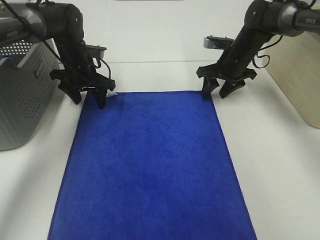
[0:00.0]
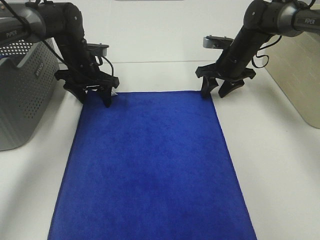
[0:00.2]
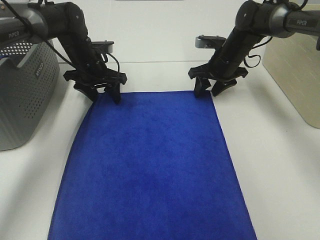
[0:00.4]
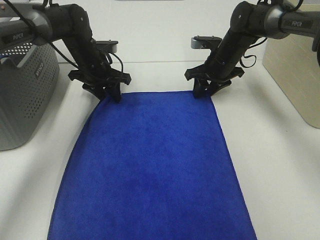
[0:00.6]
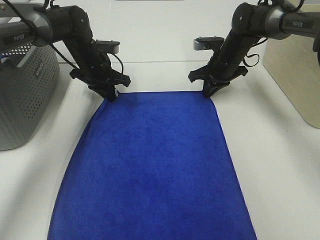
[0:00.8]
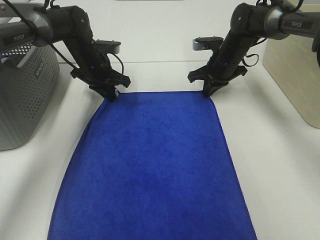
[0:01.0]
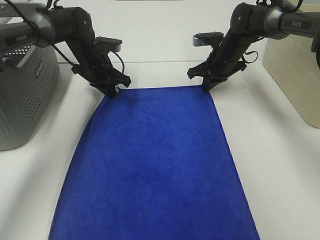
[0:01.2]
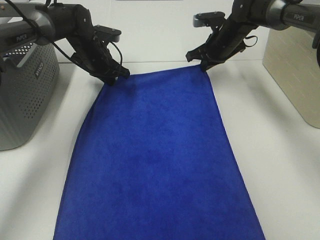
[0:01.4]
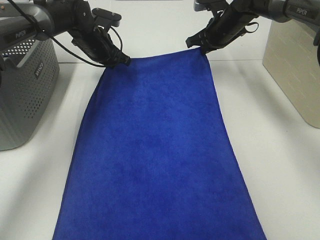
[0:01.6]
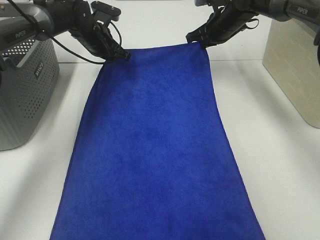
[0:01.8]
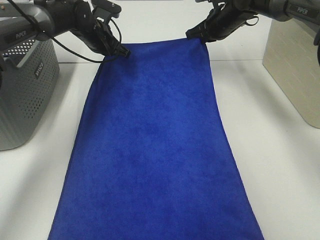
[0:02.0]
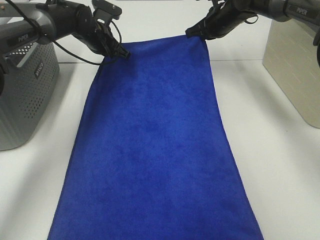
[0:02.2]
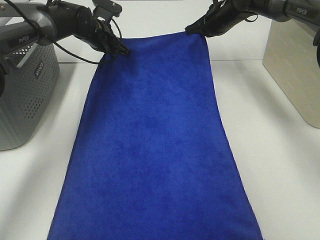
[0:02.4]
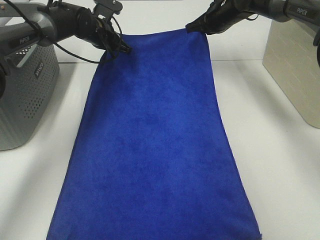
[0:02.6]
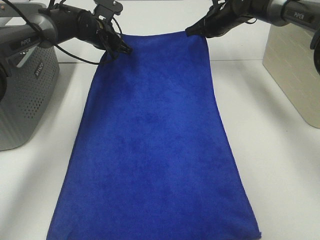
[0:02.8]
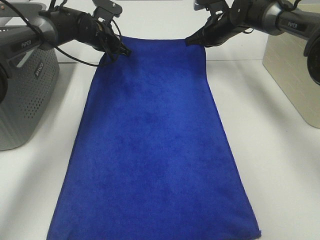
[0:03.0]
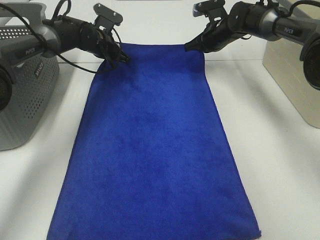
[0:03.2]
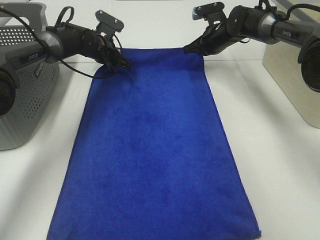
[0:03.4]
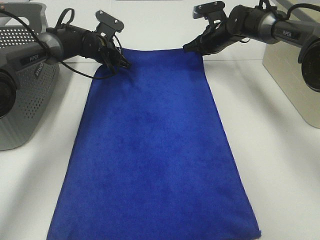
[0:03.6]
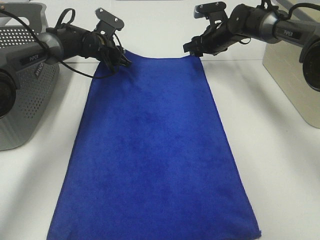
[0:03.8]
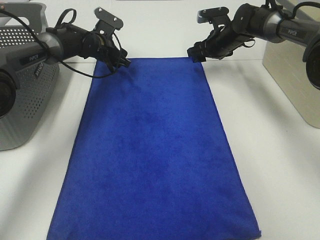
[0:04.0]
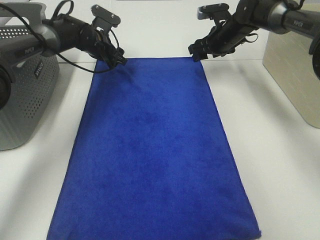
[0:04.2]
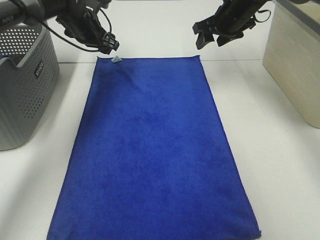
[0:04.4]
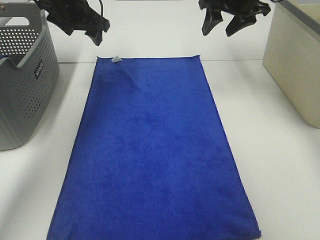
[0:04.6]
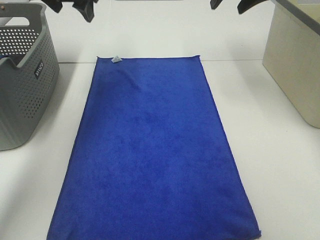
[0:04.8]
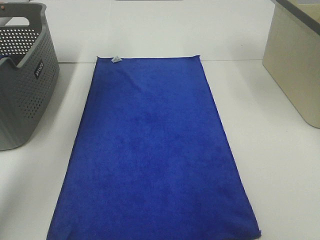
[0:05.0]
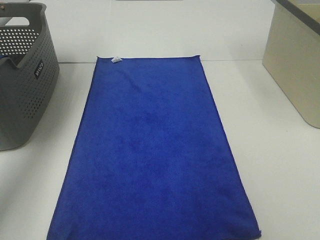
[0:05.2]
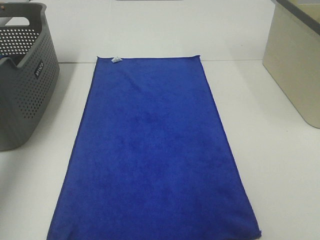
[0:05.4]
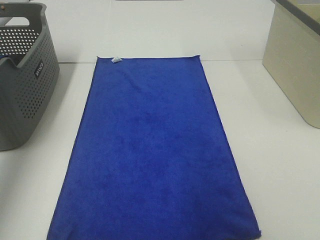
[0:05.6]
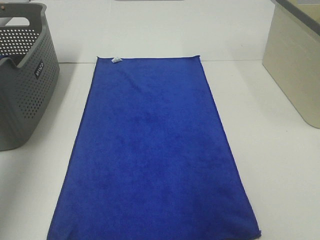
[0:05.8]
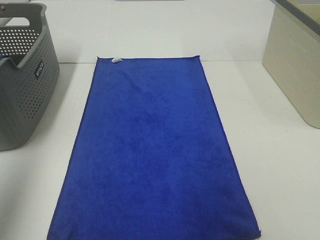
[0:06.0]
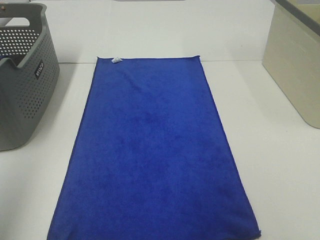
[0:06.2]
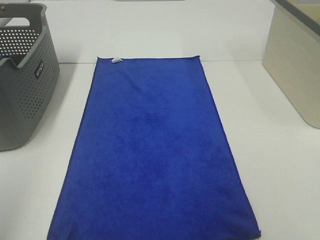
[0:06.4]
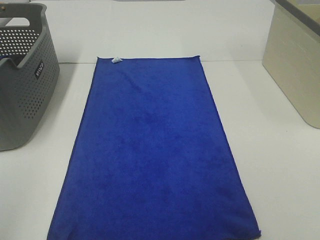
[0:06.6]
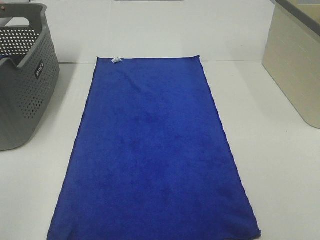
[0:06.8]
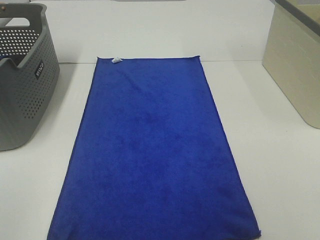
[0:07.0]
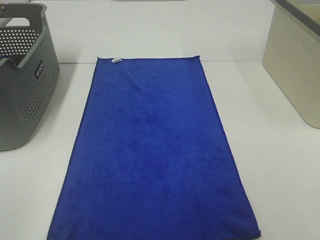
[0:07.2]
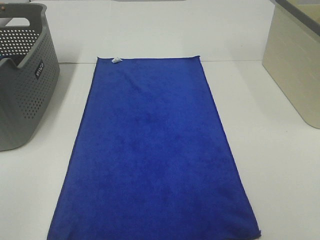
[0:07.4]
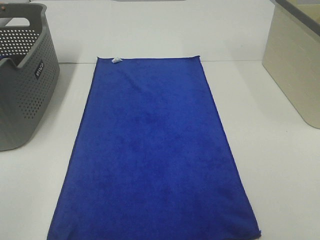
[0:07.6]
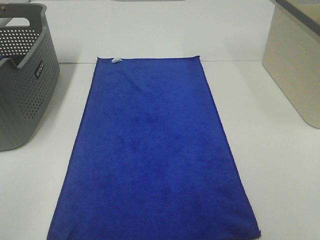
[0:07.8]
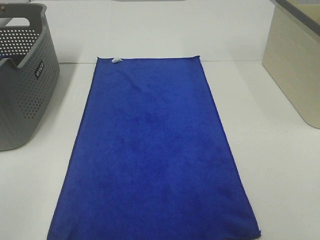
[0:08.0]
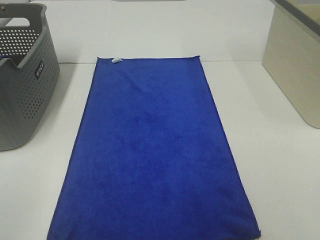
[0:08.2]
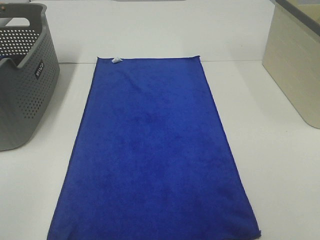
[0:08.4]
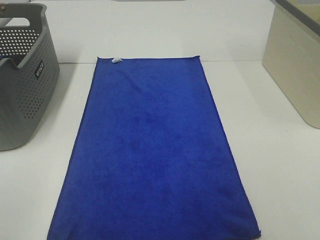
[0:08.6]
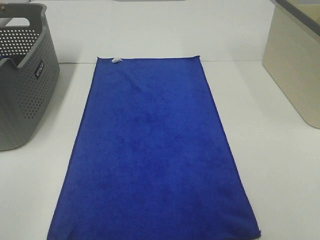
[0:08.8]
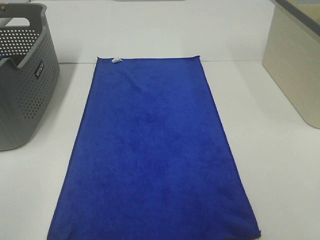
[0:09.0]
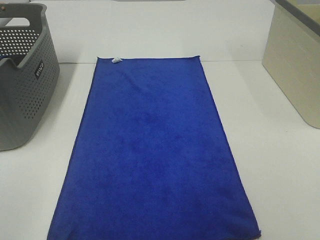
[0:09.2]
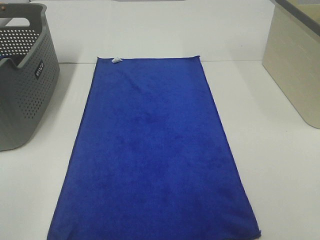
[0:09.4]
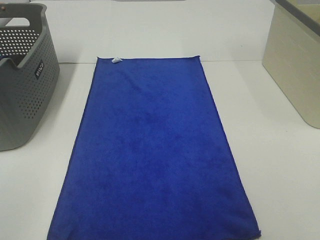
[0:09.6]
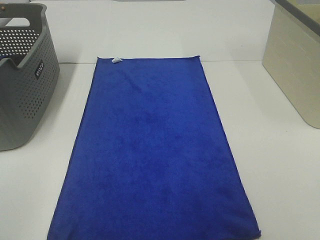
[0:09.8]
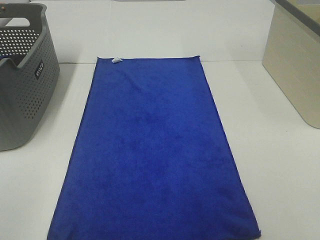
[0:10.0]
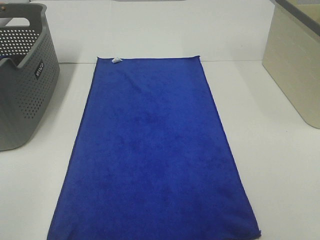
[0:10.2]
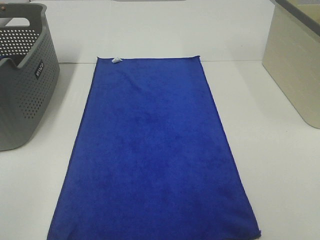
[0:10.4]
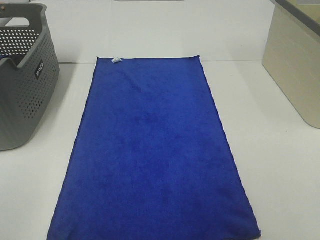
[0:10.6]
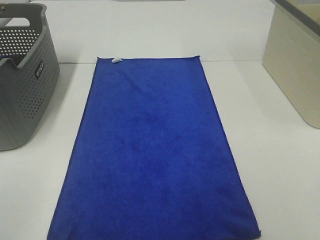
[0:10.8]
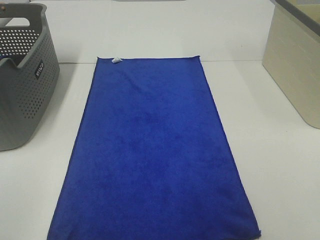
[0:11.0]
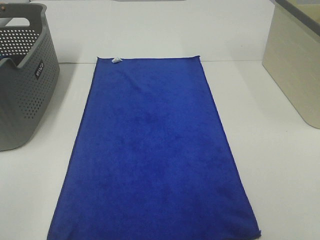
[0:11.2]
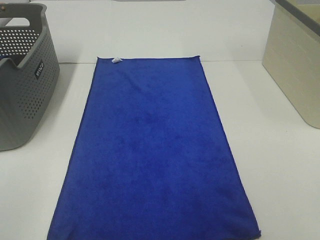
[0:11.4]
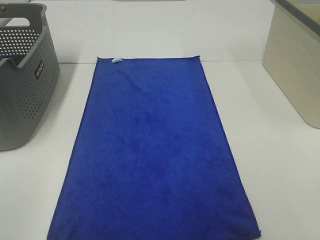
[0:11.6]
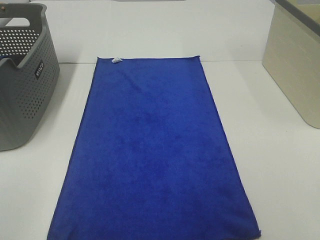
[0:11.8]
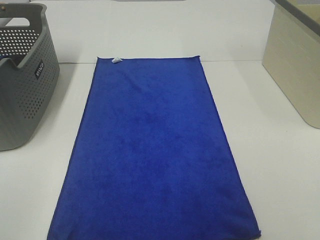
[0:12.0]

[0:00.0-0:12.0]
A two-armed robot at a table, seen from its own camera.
Task of the whole recording: Remove the towel and place it.
0:00.0 to 0:01.6: The left gripper shifts by roughly 5 cm, and closes its fingers. The right gripper is displaced upward by about 5 cm, and closes up.
0:03.0 to 0:04.4: The two grippers go roughly 5 cm upward. The right gripper opens up, while the left gripper opens its fingers.
0:04.4 to 0:06.0: The left gripper goes approximately 50 cm backward, upward and to the left. The right gripper is displaced backward and upward by approximately 40 cm.
0:06.0 to 0:07.6: The left gripper shifts some 20 cm backward and downward.
0:07.6 to 0:12.0: The two grippers keep their place.

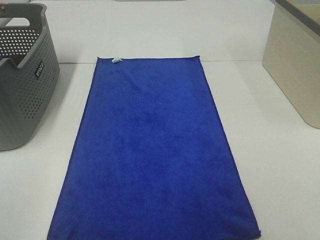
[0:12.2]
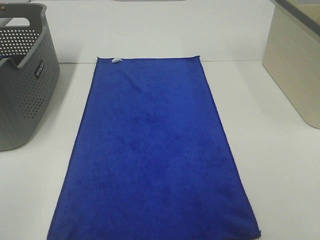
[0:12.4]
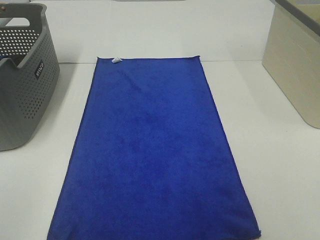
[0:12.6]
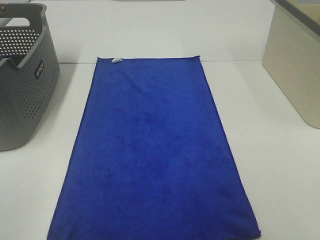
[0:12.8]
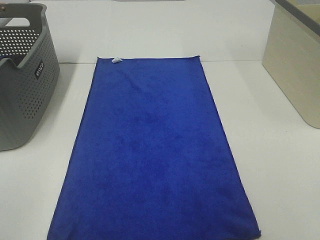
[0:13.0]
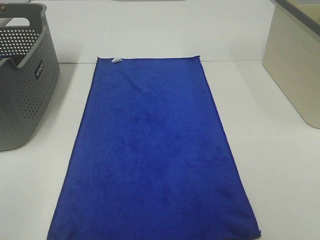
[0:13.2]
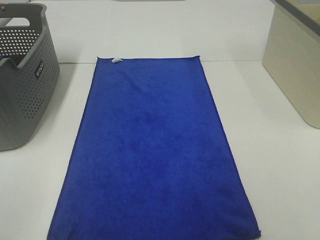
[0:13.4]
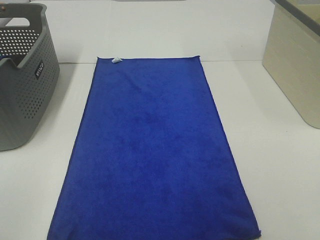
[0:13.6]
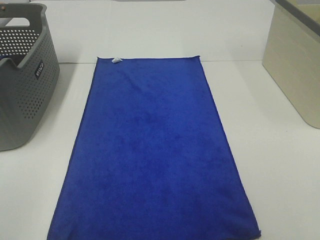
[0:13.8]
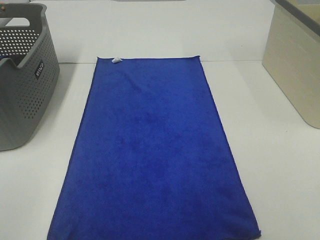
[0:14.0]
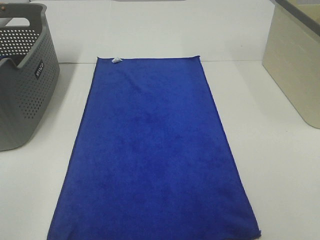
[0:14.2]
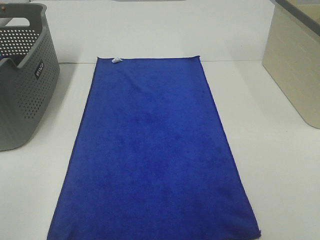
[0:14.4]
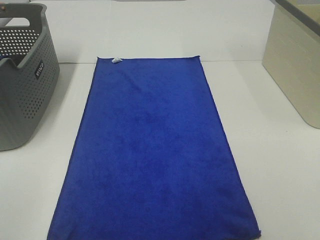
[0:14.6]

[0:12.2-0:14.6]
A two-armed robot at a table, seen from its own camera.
Task of the whole recording: Remove the towel and place it.
0:12.2 to 0:14.6: Both grippers stay put.

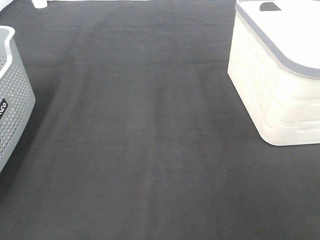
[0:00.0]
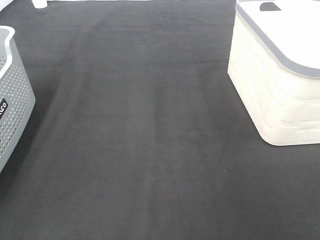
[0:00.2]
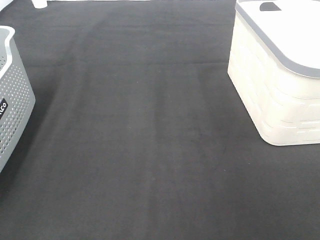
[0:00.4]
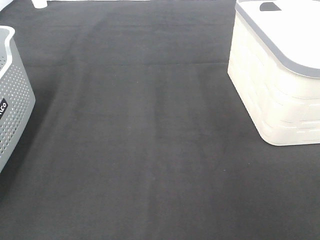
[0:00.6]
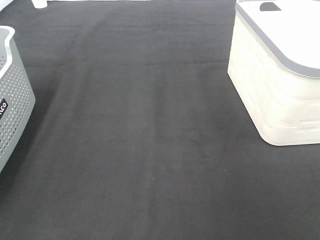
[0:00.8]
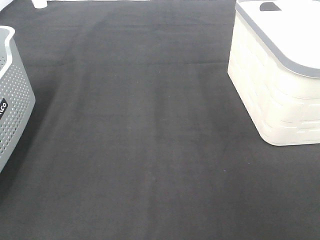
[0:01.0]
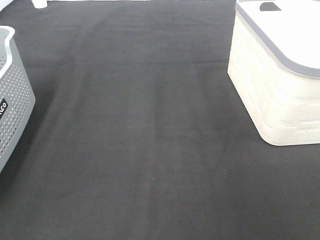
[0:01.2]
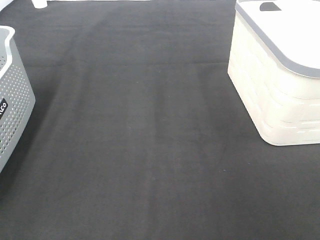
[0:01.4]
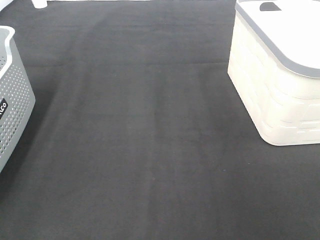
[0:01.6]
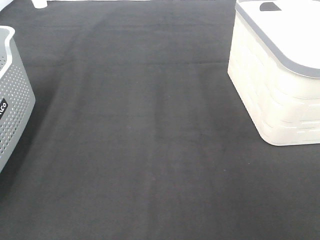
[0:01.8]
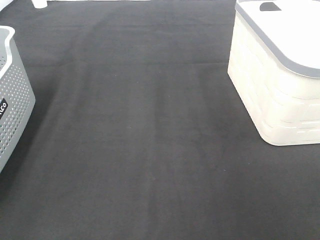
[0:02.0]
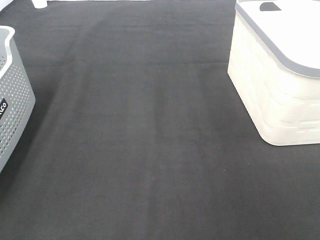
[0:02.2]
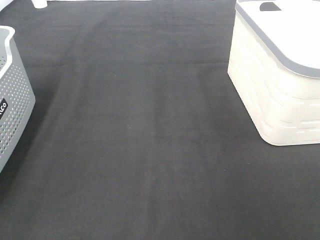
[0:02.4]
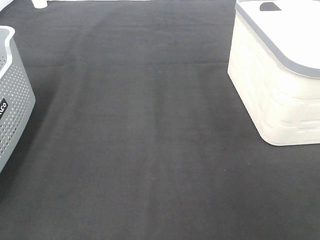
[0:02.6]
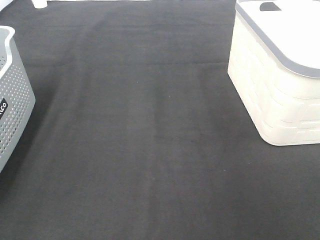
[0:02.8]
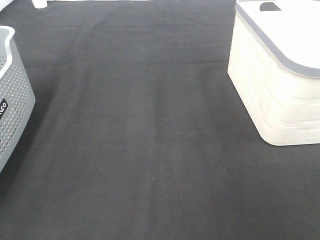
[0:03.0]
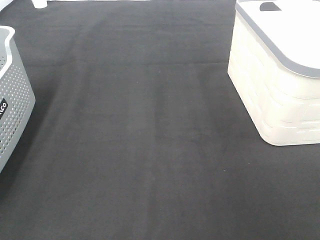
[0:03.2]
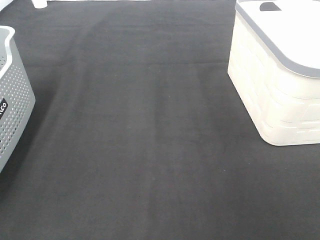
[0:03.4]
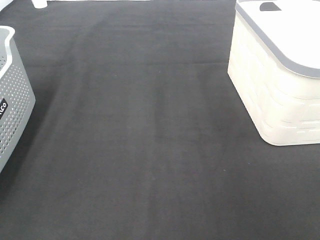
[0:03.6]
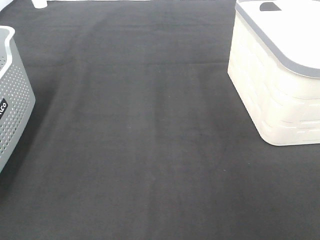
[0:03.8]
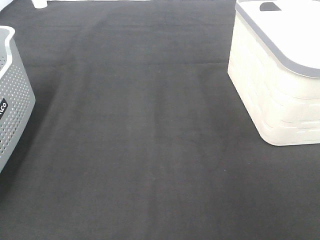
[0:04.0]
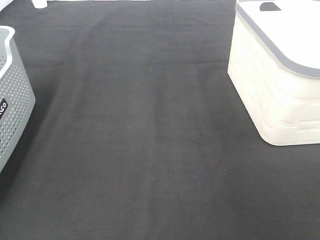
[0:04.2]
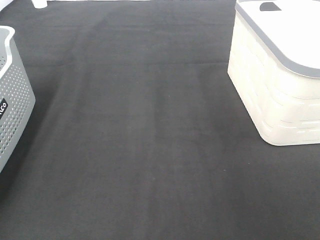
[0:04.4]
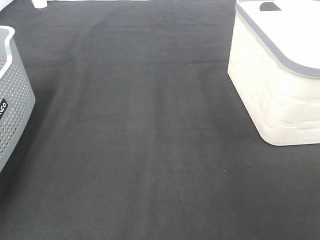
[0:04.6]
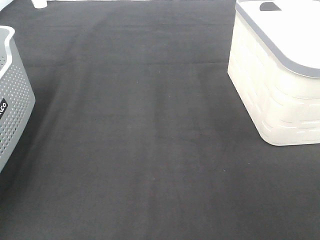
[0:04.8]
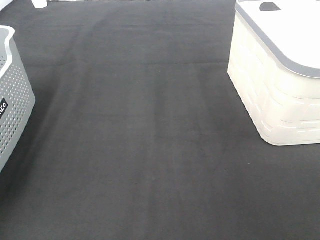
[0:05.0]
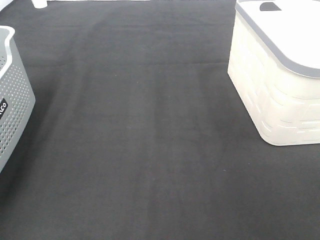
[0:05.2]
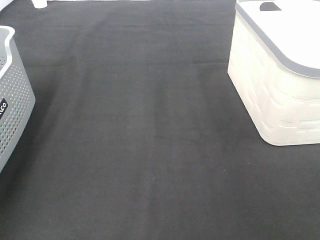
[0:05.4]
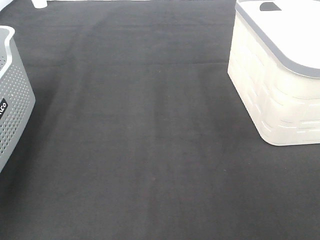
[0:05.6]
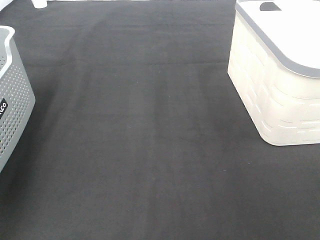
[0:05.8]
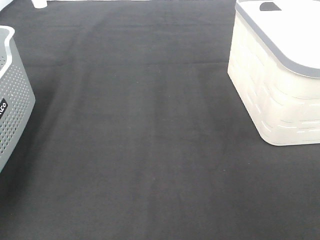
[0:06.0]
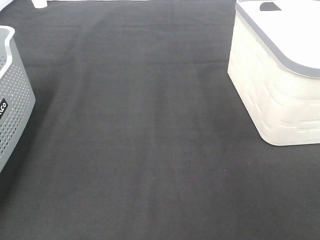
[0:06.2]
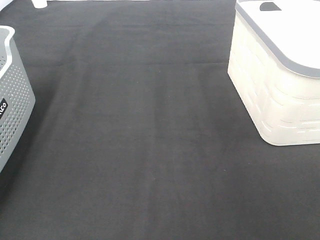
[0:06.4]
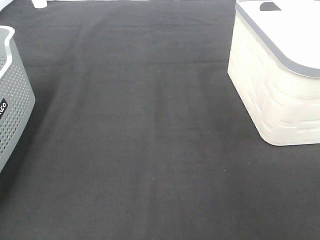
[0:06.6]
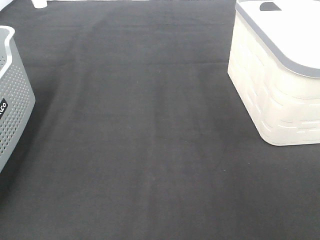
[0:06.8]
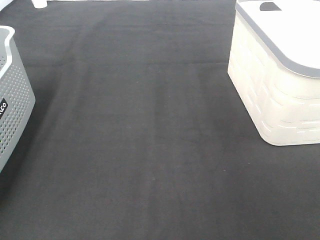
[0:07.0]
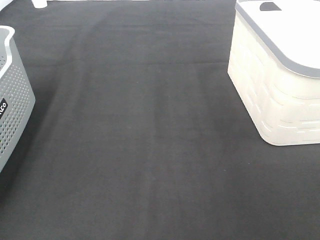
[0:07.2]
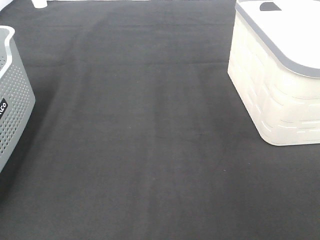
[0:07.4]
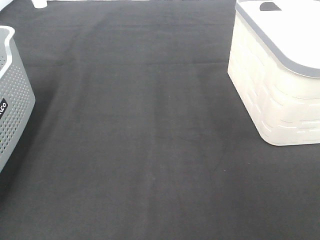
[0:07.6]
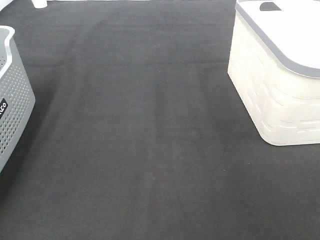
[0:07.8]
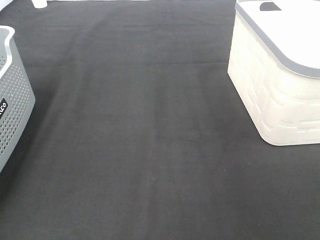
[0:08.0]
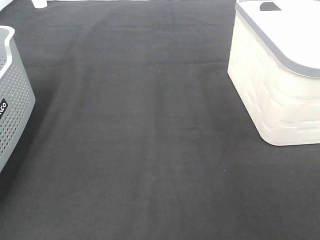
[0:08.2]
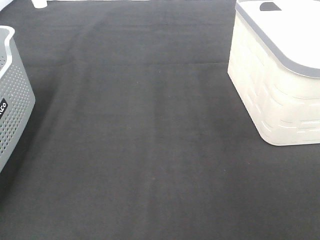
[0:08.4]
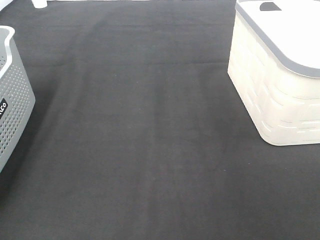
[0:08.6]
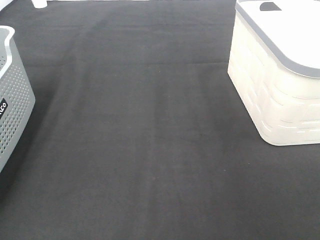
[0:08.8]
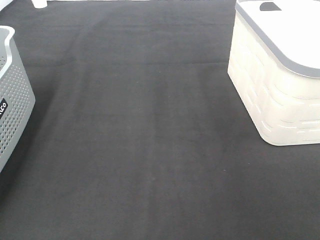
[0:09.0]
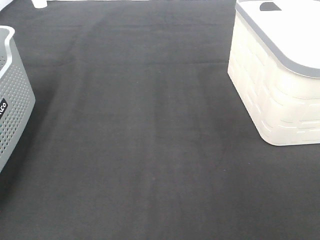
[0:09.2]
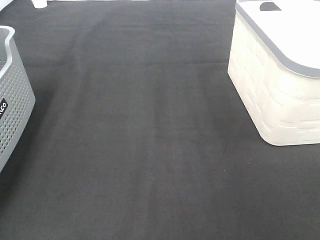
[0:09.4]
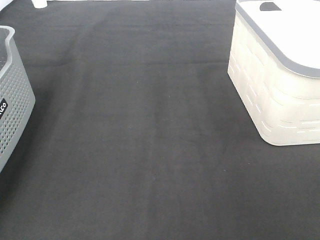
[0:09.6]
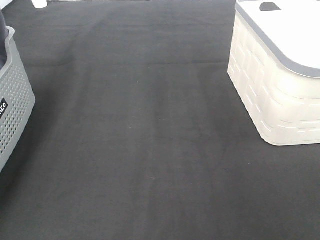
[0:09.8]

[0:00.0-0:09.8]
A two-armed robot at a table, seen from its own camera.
Task of the whole recording: Remove the towel and place it.
0:00.0 to 0:02.8: Neither gripper changes place.
0:04.2 to 0:05.6: The left gripper heads forward, covering approximately 20 cm.
0:08.4 to 0:09.8: The left gripper is displaced upward by some 25 cm.
